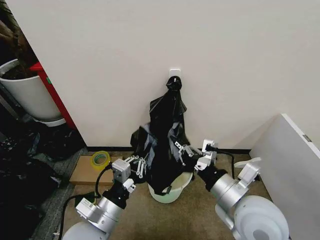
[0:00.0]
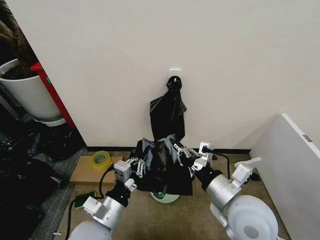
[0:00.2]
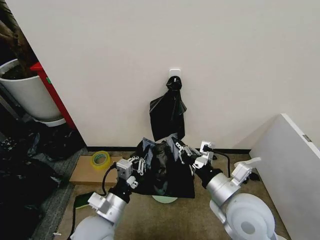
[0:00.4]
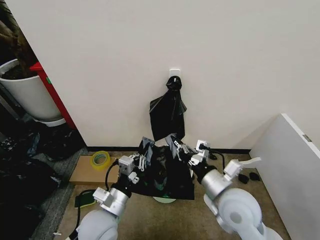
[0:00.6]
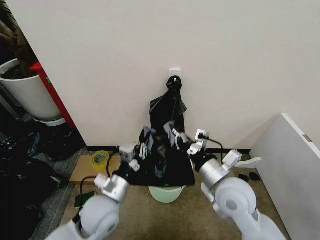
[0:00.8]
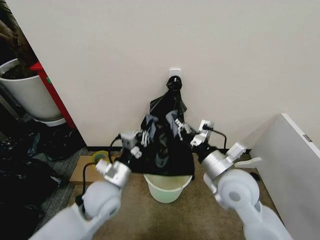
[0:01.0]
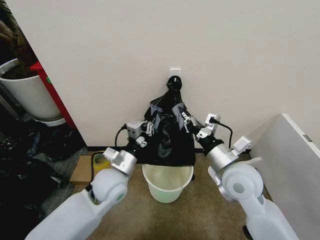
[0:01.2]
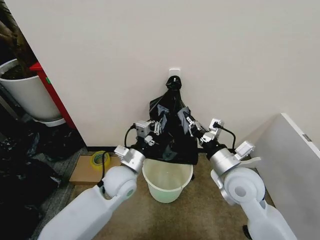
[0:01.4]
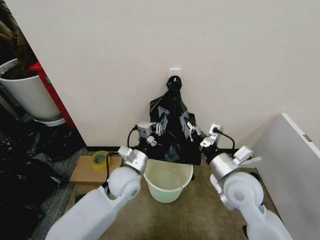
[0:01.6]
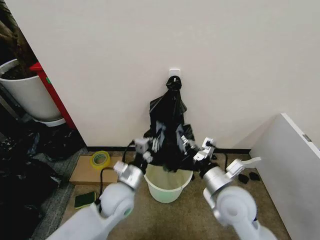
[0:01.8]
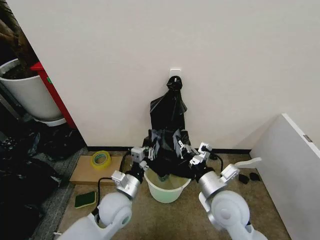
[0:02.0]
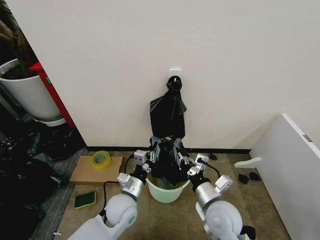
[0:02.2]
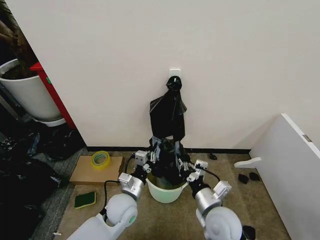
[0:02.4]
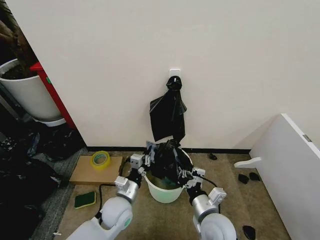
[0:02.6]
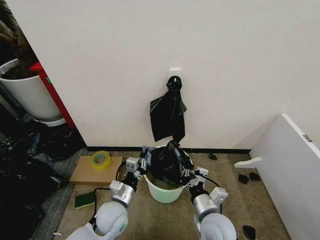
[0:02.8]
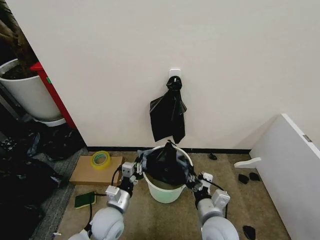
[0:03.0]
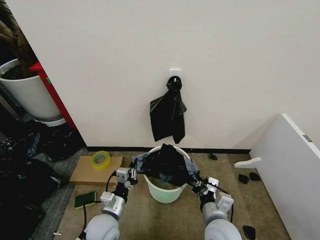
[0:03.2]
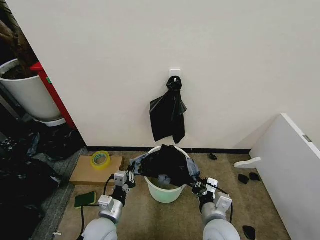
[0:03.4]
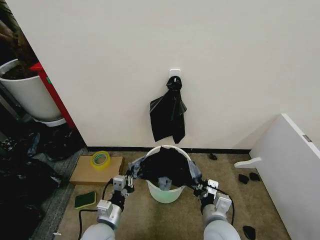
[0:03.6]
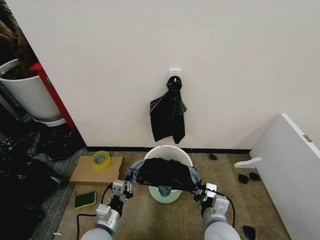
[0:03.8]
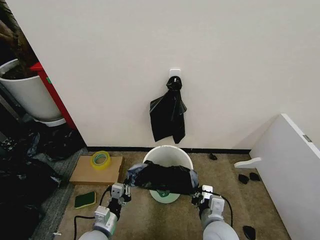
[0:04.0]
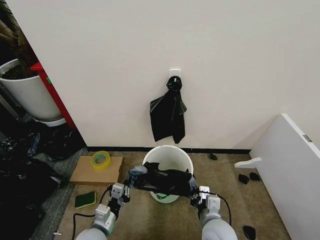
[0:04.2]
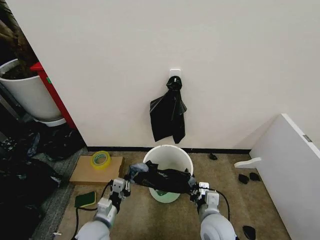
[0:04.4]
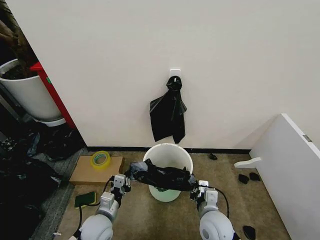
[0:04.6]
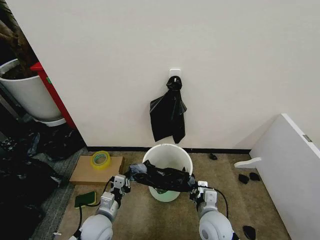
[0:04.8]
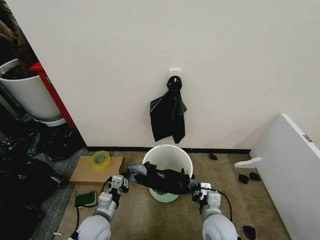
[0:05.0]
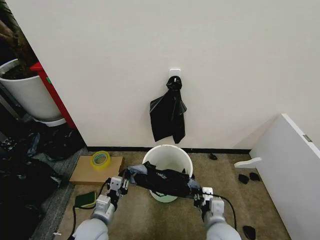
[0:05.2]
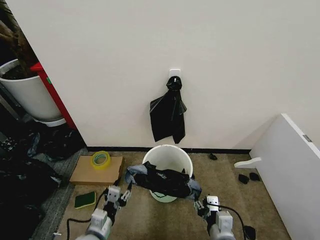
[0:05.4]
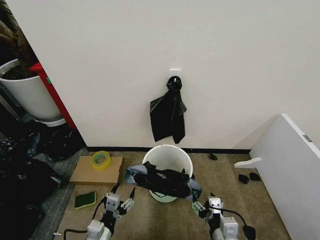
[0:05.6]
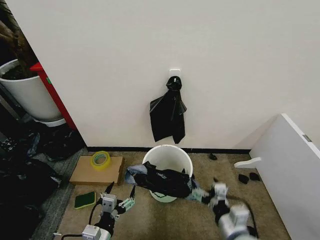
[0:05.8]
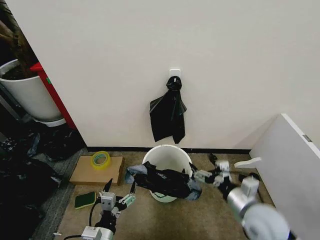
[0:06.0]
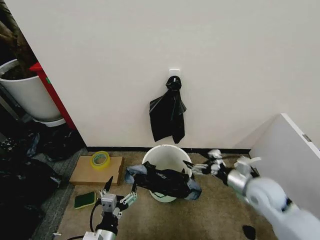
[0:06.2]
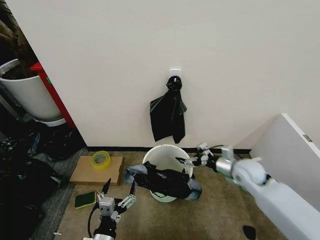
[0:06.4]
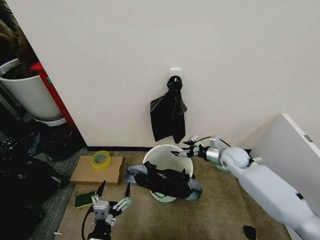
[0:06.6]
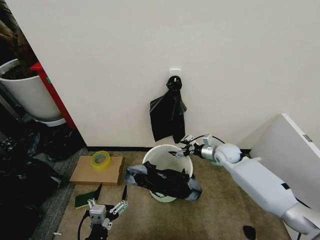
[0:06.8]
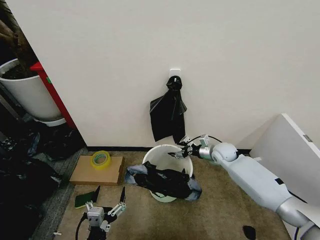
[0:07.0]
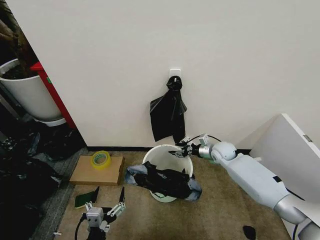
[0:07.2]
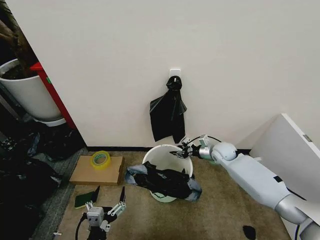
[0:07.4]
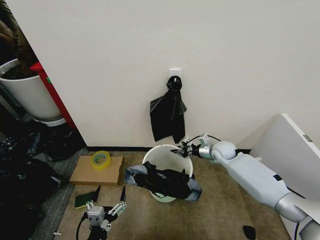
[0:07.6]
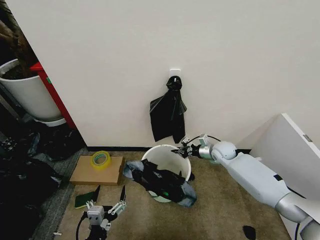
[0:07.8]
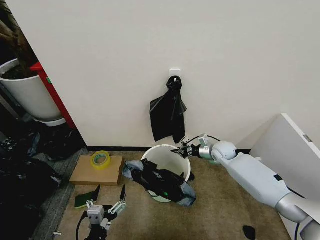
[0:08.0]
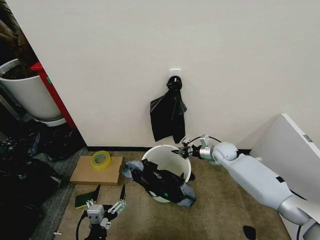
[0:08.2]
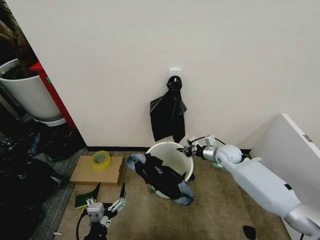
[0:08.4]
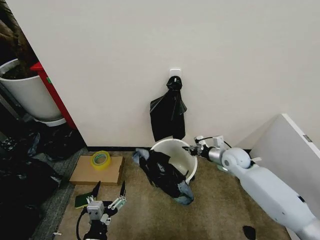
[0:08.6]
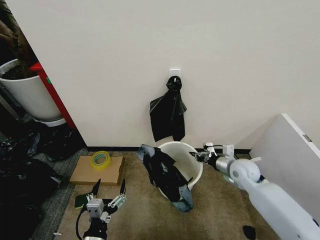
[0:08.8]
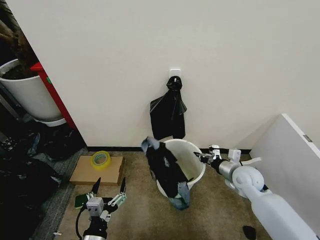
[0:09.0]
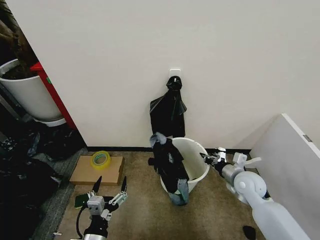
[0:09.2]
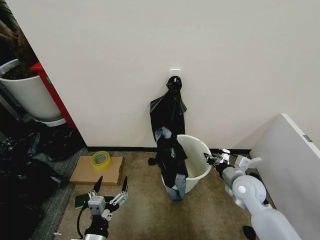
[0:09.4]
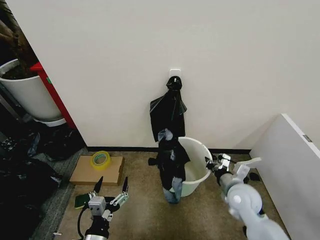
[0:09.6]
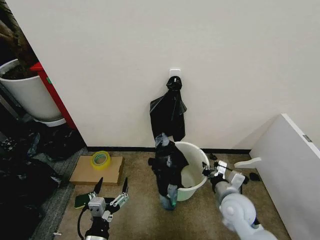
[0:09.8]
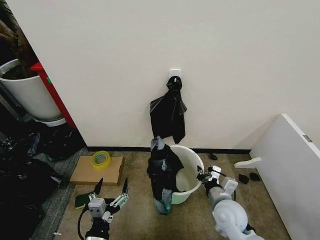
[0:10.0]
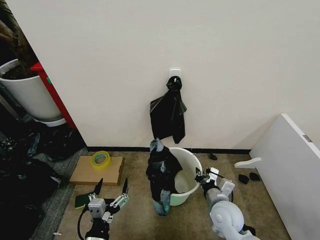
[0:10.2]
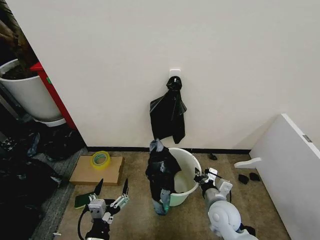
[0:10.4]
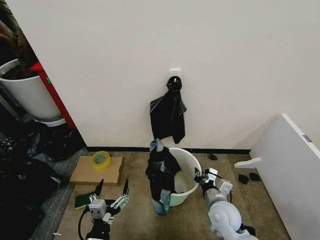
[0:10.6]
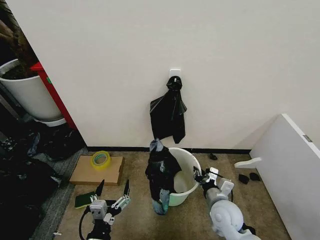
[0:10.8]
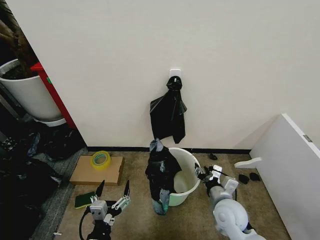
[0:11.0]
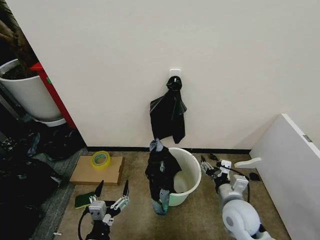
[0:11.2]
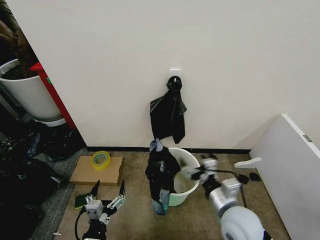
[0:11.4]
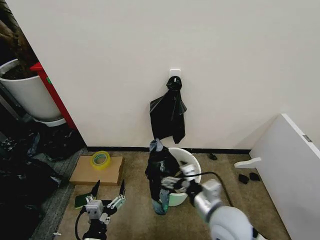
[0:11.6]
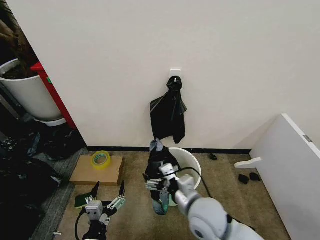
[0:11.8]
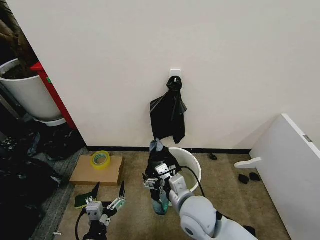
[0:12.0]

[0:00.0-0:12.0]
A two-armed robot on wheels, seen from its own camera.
Task of the whole recording: Place the garbage bag over the trash bin.
0:00.0 to 0:01.6: The left gripper heads forward, covering about 15 cm. The right gripper goes approximately 10 cm forward.
0:01.6 to 0:03.0: The grippers both shift downward, backward and to the left by about 15 cm.
0:03.0 to 0:04.4: The left gripper shifts by approximately 5 cm.
0:04.4 to 0:06.0: The left gripper heads backward, covering roughly 10 cm, and opens up; the right gripper is displaced to the right and upward by approximately 15 cm, goes backward and returns, about 10 cm each way, and opens.
0:06.0 to 0:07.6: The right gripper moves forward, about 30 cm, and closes its fingers.
0:07.6 to 0:09.0: The right gripper moves backward, roughly 15 cm.
0:09.0 to 0:10.4: The right gripper shifts some 15 cm to the left, backward and downward.
0:10.4 to 0:12.0: The right gripper moves to the left and upward, about 15 cm, and opens its fingers.

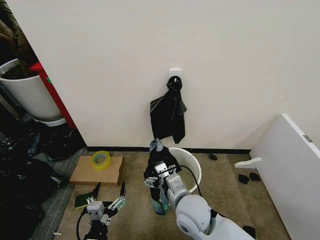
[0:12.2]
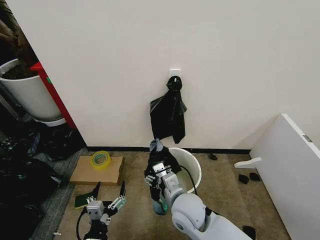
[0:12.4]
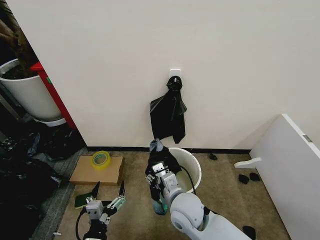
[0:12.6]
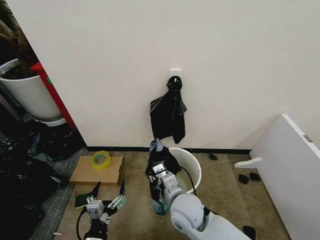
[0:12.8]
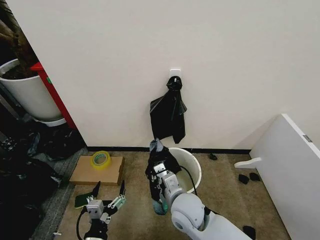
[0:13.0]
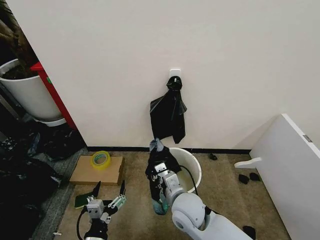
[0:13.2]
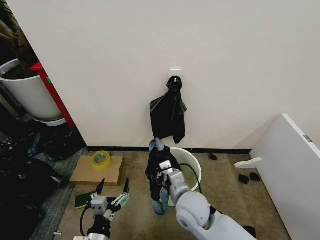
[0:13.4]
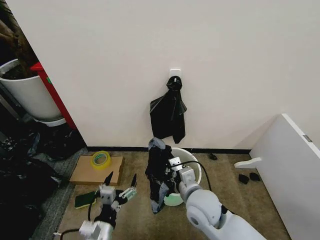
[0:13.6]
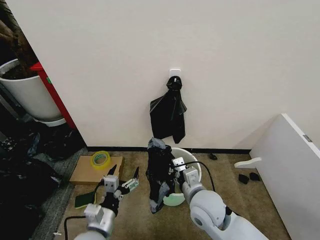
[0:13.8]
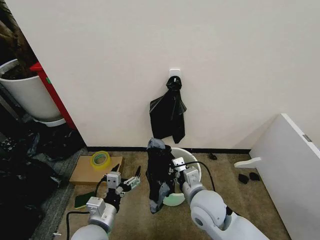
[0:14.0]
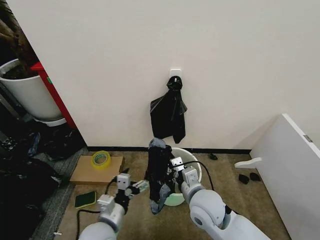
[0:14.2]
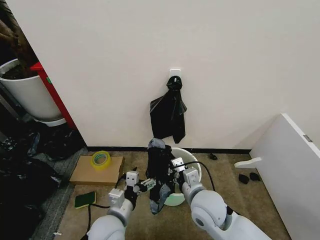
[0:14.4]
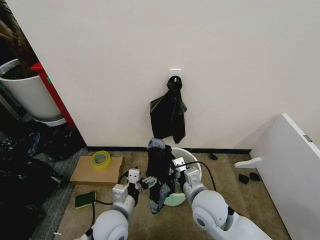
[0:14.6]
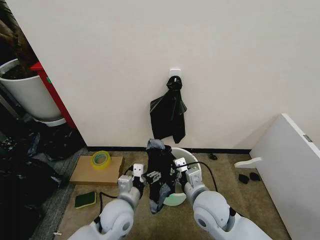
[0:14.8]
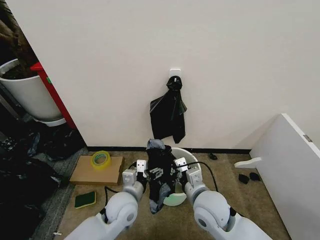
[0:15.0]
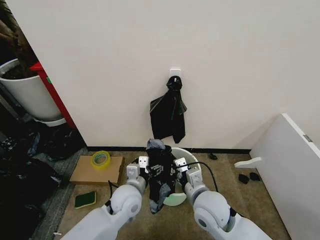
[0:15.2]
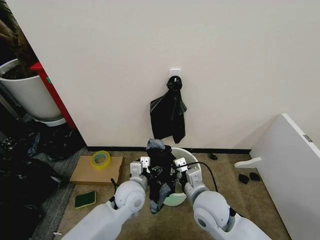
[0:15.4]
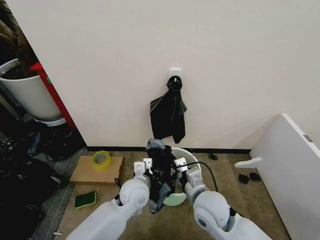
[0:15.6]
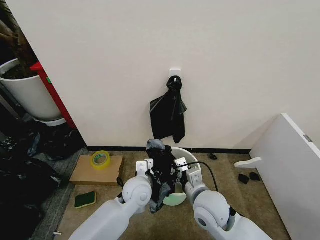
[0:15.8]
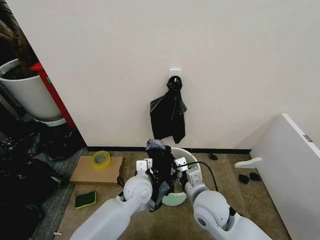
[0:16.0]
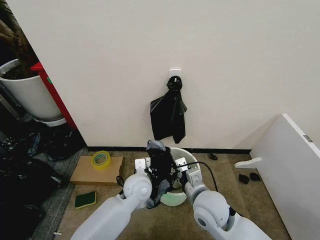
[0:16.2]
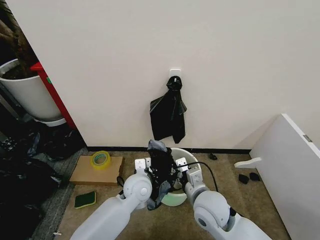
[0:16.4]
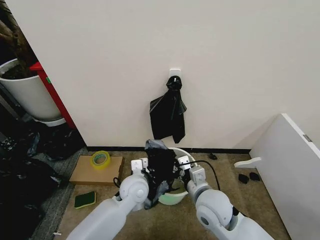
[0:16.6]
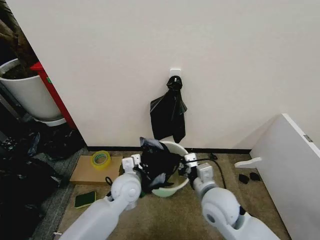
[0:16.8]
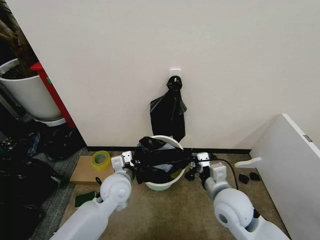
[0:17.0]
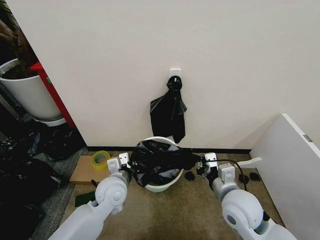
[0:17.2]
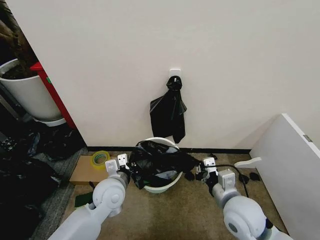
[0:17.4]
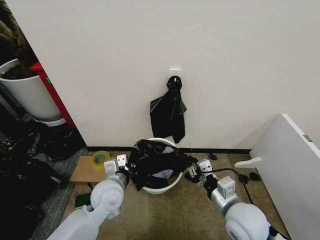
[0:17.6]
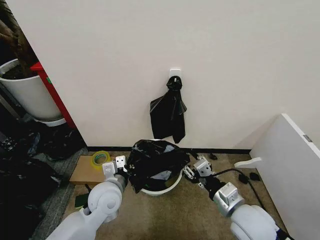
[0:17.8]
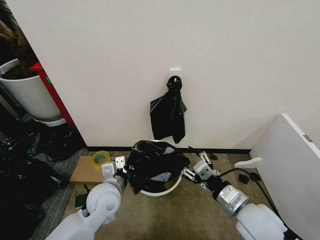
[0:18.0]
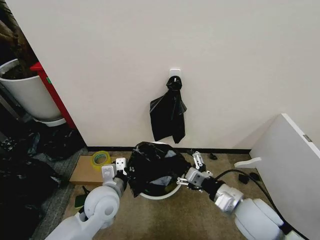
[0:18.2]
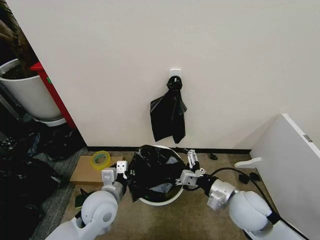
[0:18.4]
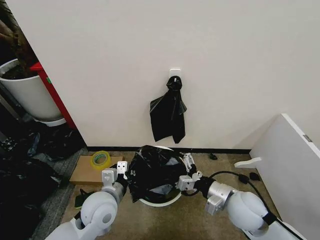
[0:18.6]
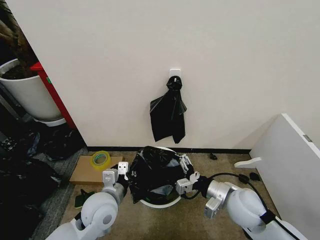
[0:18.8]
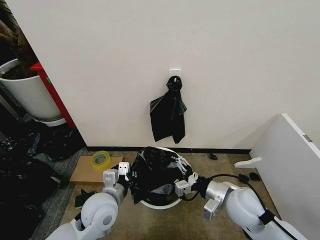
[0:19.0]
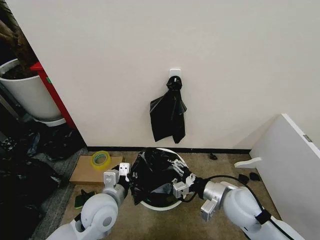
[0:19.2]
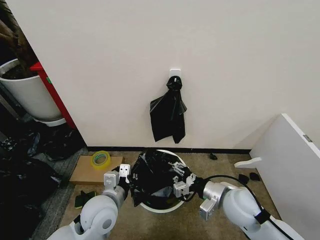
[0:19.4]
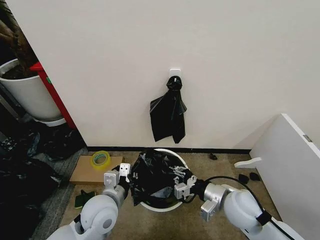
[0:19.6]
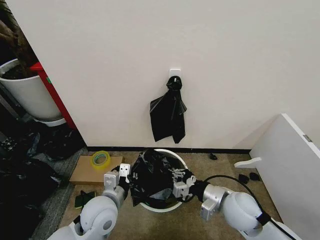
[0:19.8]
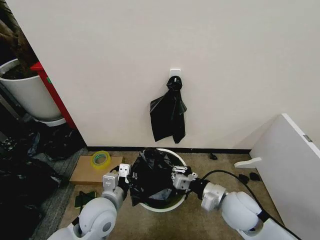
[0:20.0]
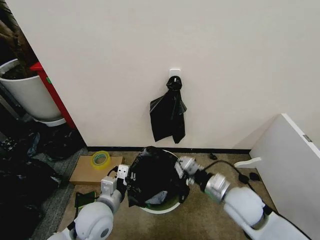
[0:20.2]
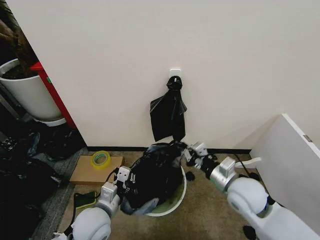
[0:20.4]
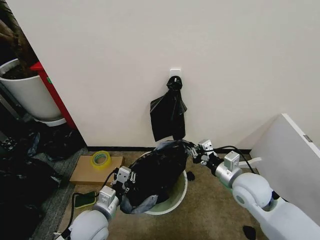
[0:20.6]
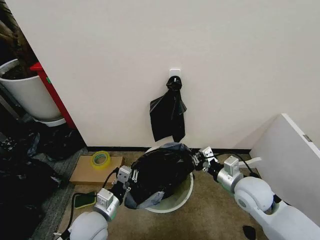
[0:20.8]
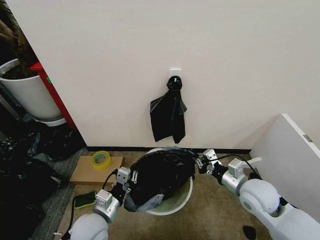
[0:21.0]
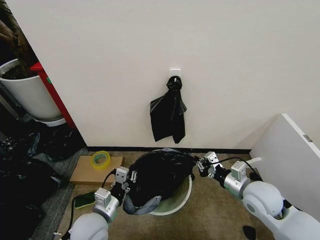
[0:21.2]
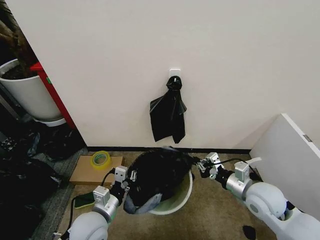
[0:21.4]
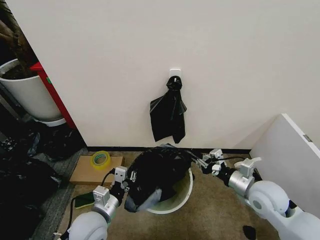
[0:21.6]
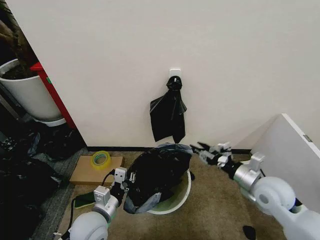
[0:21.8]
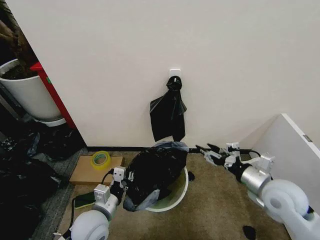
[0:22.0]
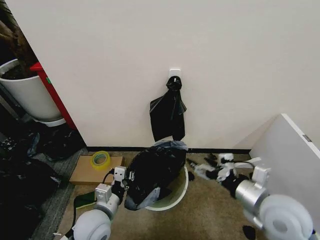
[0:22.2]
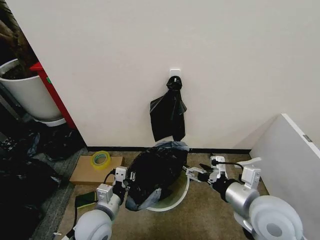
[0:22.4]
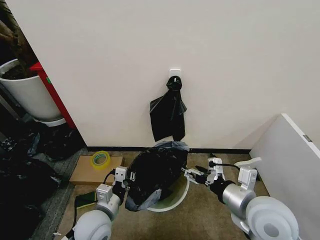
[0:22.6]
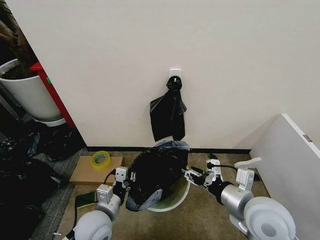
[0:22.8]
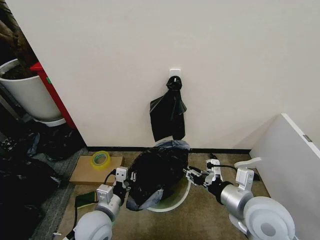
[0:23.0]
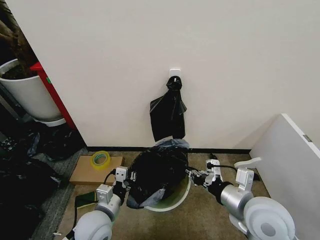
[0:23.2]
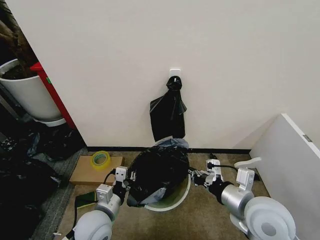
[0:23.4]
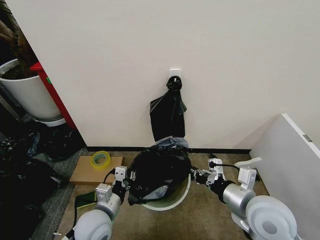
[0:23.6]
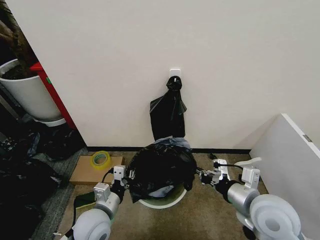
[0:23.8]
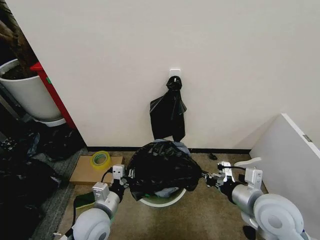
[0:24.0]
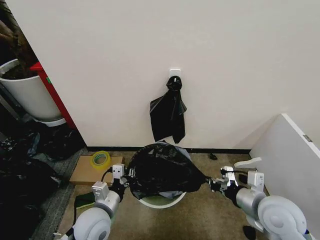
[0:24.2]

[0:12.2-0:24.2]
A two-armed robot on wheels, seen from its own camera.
Task of the whole recording: Place the garbage bag over the trash bin.
0:12.2 to 0:13.8: The right gripper closes its fingers, while the left gripper travels forward by approximately 5 cm.
0:13.8 to 0:15.2: The left gripper shifts some 15 cm forward and to the right.
0:15.2 to 0:16.6: The left gripper closes up.
0:16.6 to 0:18.2: The right gripper moves to the right, approximately 10 cm, and opens up. The left gripper moves to the left and backward, roughly 10 cm.
0:18.2 to 0:19.8: The right gripper closes.
0:19.8 to 0:21.2: The left gripper shifts by roughly 5 cm, while the right gripper moves to the right, approximately 5 cm.
0:21.2 to 0:22.6: The right gripper shifts approximately 10 cm upward, backward and to the left, and opens up.
0:22.6 to 0:24.2: The right gripper goes approximately 5 cm to the right, and closes.
